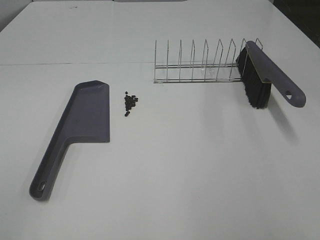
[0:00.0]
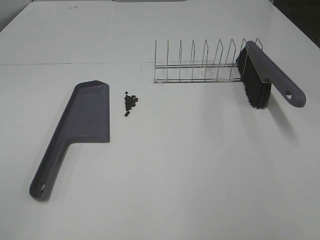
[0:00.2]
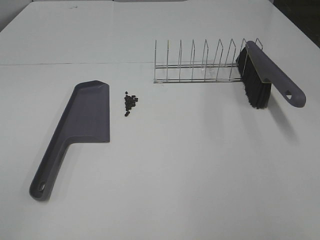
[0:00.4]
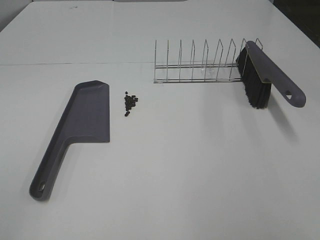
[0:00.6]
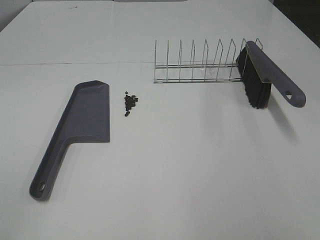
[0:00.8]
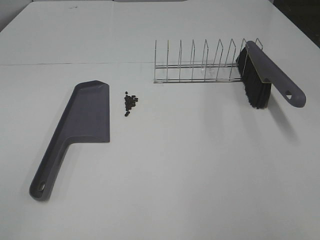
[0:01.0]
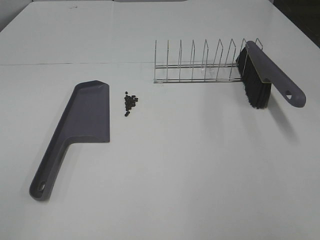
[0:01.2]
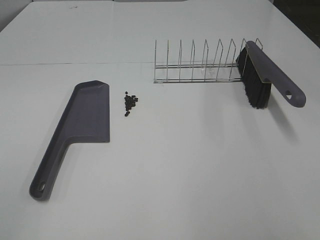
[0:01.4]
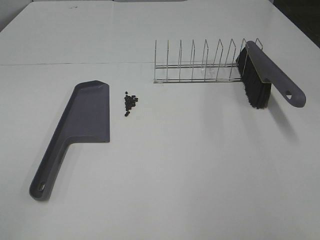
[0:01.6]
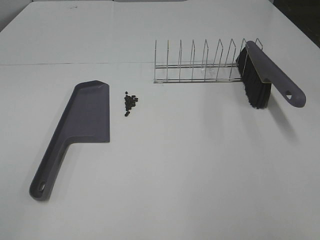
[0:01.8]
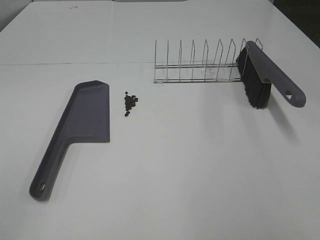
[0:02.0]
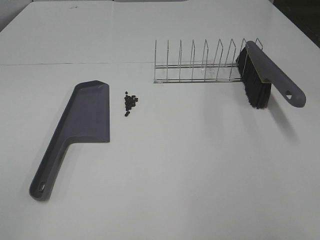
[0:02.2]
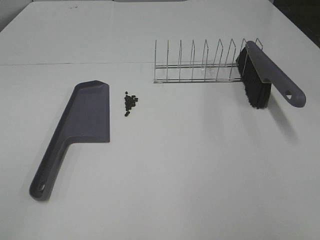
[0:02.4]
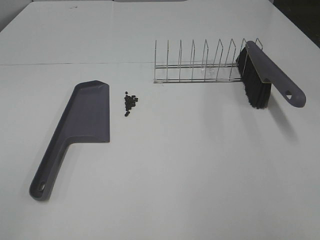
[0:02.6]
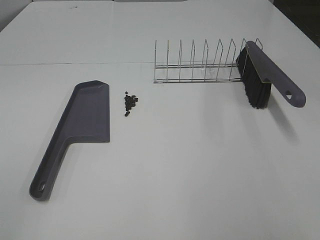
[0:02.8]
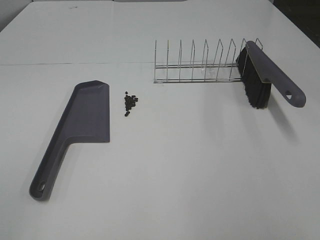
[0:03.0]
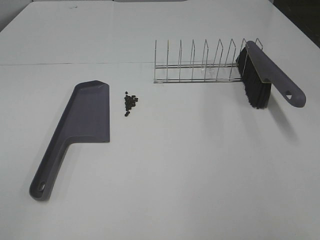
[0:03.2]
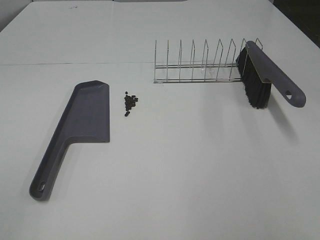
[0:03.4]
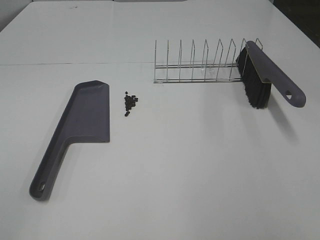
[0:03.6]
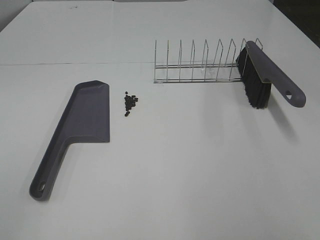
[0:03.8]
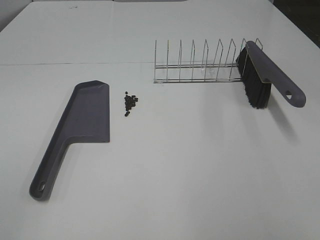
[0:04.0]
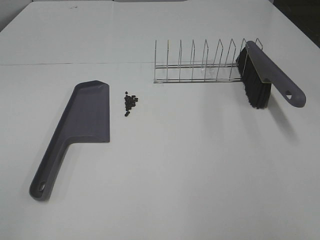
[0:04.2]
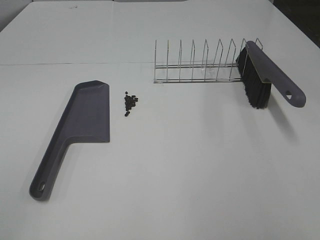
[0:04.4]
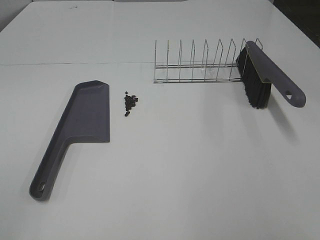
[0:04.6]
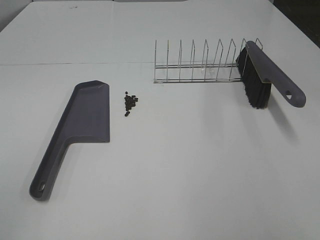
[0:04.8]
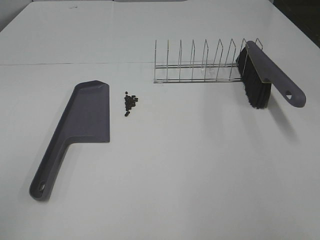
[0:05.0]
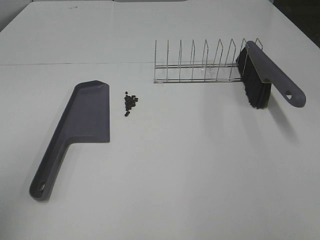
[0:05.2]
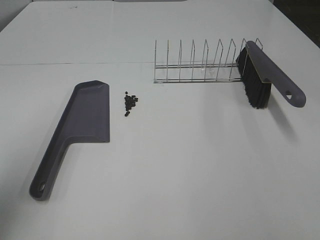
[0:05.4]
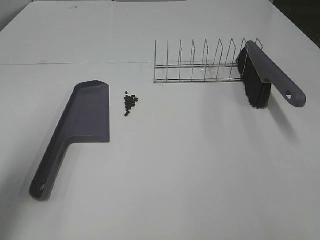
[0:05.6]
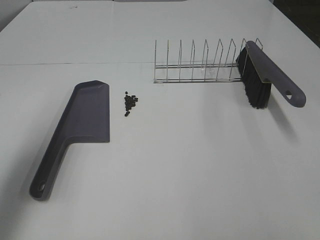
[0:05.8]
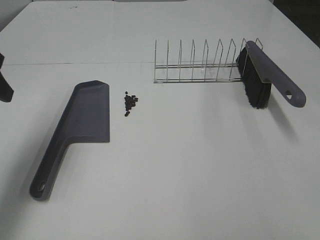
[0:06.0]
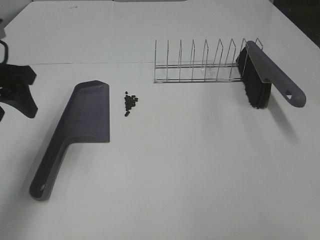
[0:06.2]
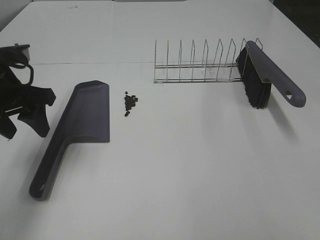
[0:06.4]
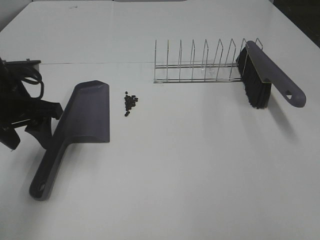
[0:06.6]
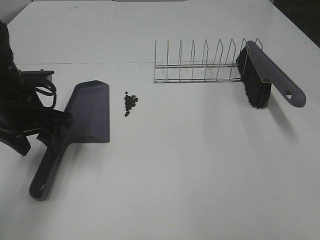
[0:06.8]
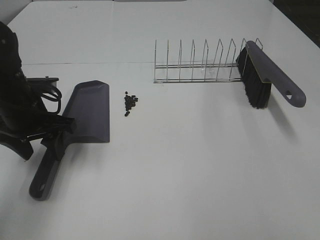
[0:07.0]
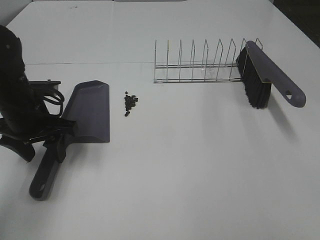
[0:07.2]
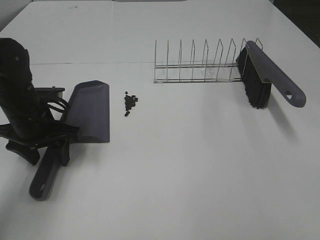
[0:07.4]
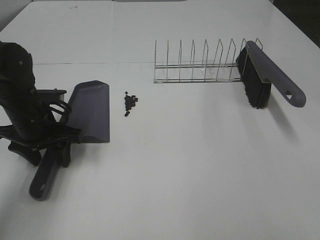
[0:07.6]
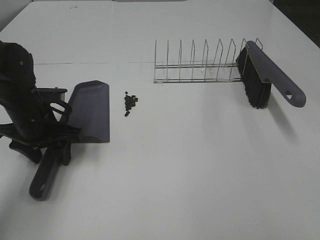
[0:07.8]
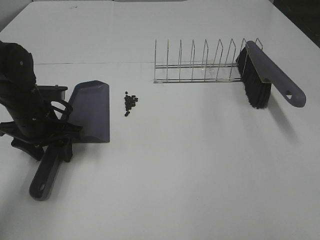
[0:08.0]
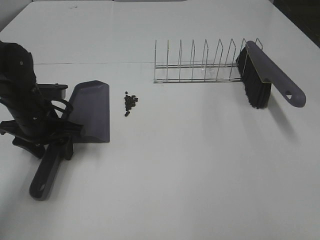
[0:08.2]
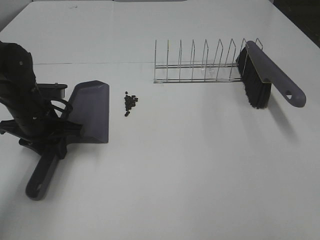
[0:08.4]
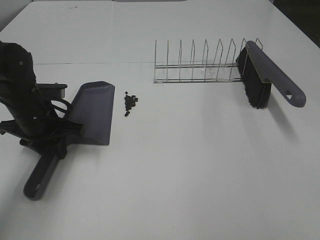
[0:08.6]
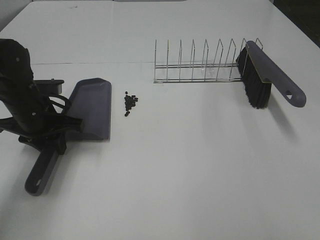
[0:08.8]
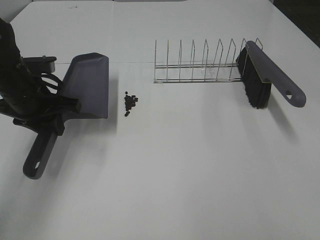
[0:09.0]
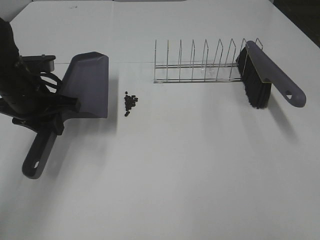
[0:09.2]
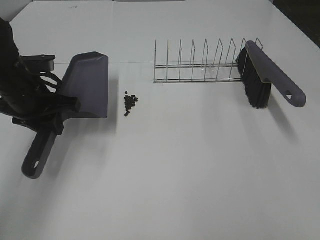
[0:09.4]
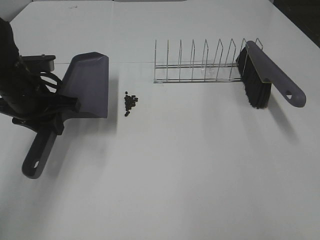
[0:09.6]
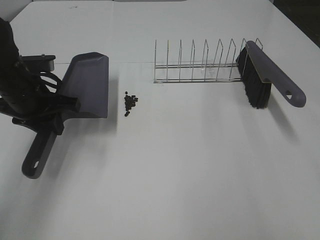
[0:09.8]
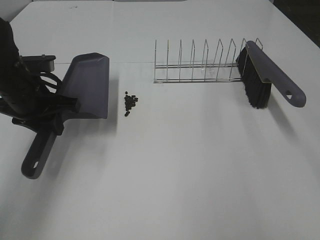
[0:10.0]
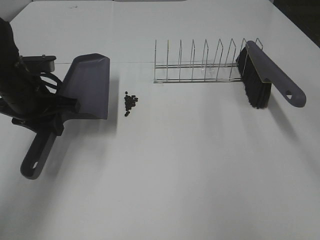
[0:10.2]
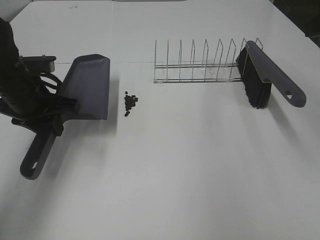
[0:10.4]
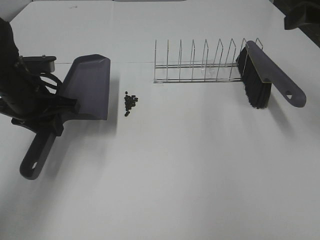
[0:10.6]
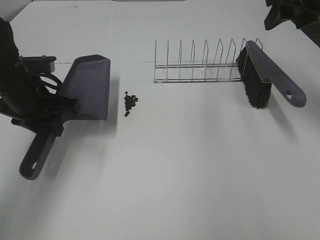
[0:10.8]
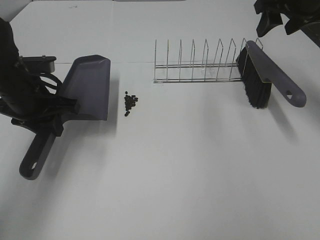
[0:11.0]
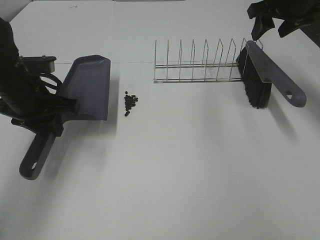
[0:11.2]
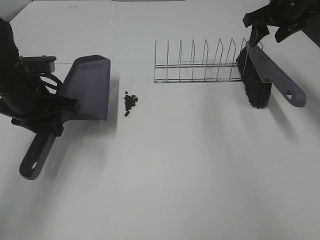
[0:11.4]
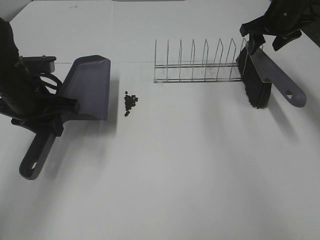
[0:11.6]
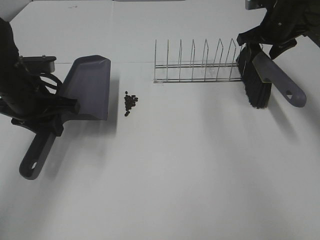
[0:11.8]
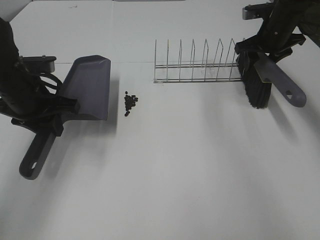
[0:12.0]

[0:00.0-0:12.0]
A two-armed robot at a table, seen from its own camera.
Task of the whole recording: Sweep Coffee Bean.
Step, 0:00.0 to 0:08.4: Left hand: grab the dustpan.
0:00.0 to 0:04.4: Both grippers stay put.
0:04.4 to 0:06.0: The left gripper goes some 30 cm forward.
0:06.0 to 0:07.6: The left gripper shifts some 15 cm downward.
0:07.6 to 0:09.0: The left gripper shifts roughly 5 cm upward, and closes its fingers.
0:10.4 to 0:12.0: The right gripper goes about 30 cm forward and downward.

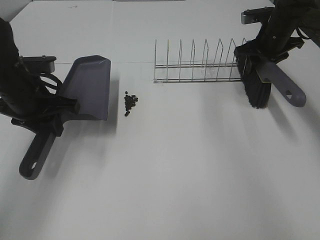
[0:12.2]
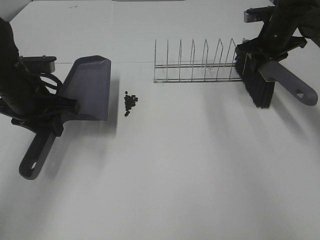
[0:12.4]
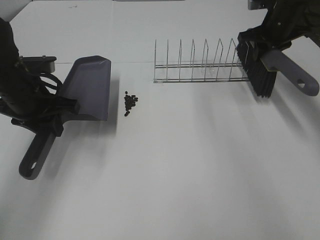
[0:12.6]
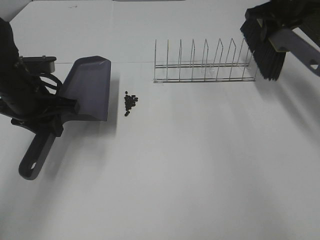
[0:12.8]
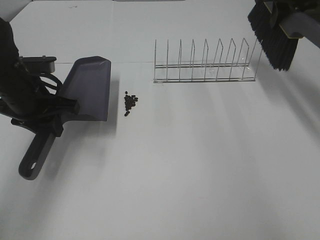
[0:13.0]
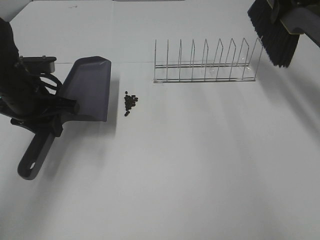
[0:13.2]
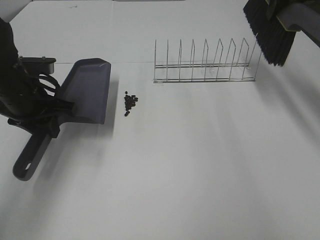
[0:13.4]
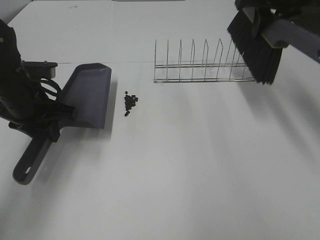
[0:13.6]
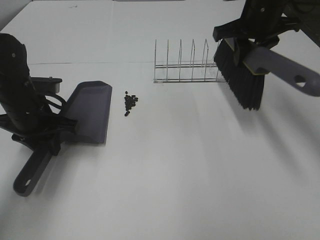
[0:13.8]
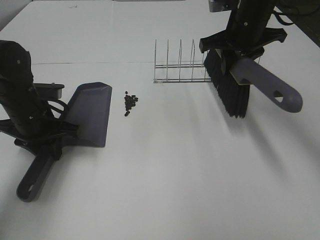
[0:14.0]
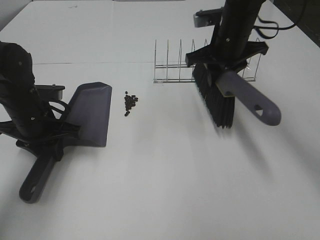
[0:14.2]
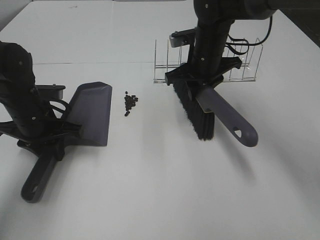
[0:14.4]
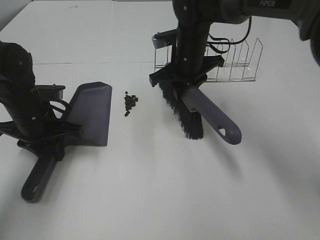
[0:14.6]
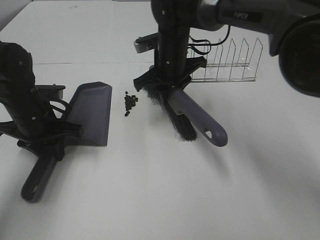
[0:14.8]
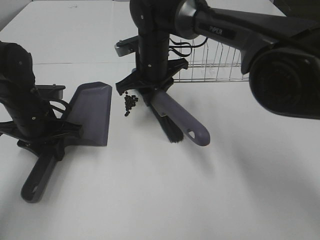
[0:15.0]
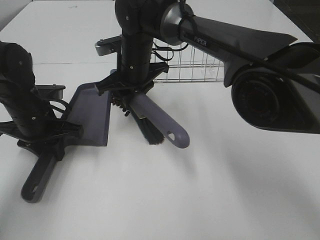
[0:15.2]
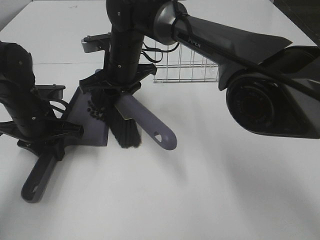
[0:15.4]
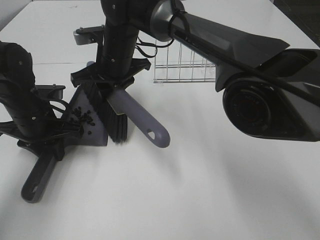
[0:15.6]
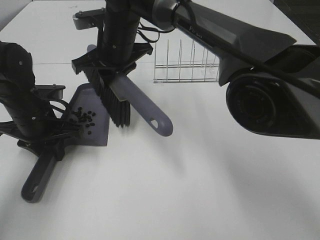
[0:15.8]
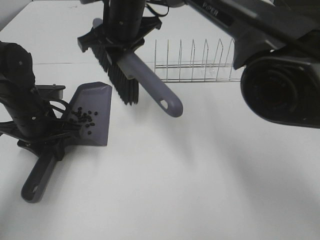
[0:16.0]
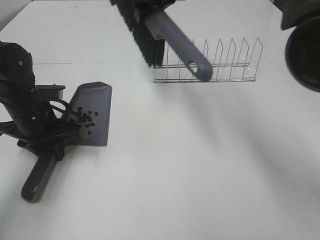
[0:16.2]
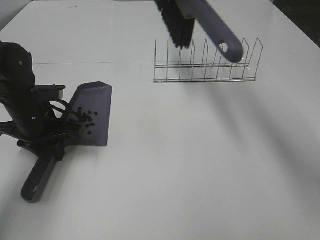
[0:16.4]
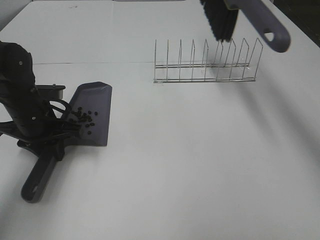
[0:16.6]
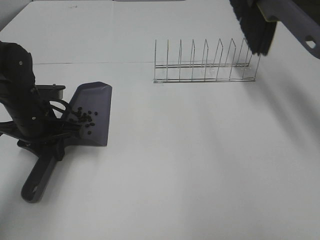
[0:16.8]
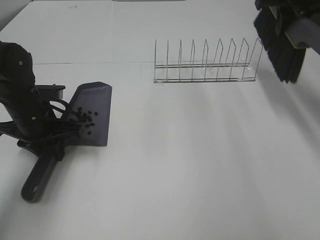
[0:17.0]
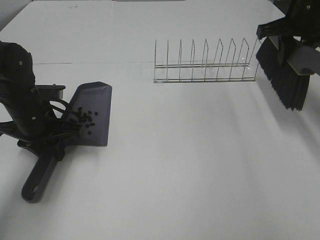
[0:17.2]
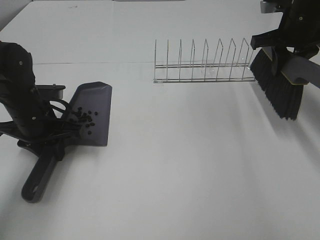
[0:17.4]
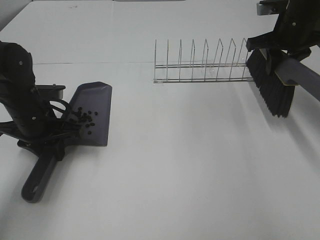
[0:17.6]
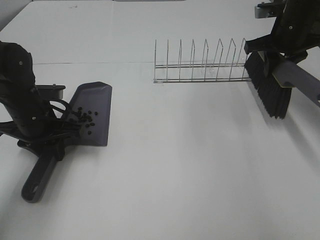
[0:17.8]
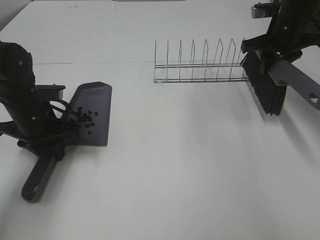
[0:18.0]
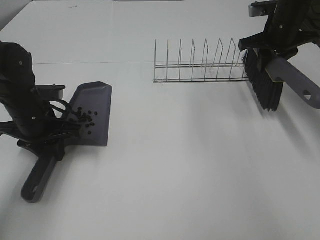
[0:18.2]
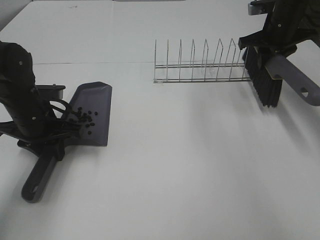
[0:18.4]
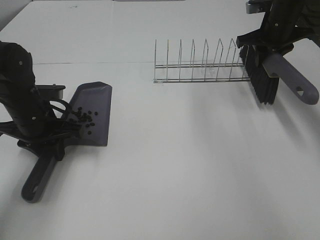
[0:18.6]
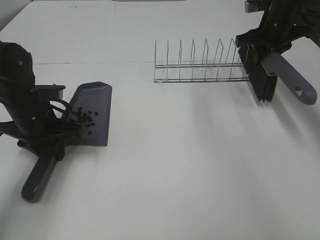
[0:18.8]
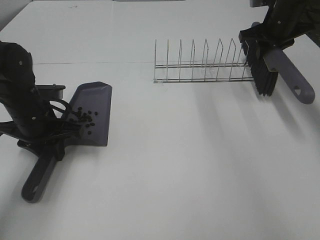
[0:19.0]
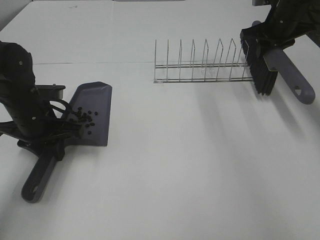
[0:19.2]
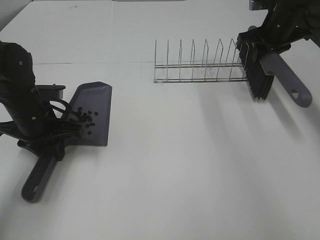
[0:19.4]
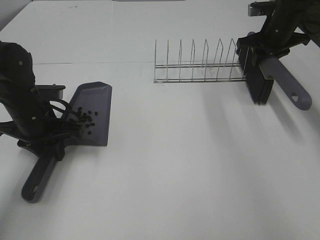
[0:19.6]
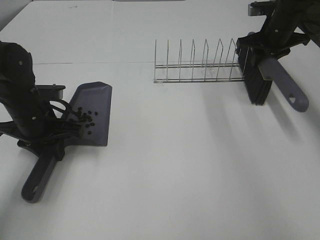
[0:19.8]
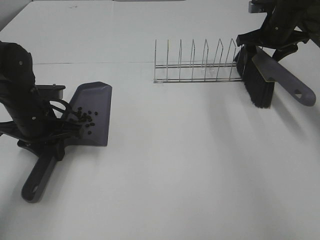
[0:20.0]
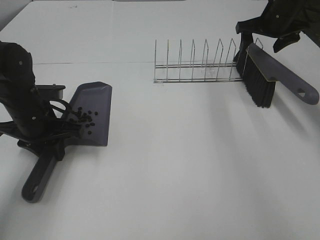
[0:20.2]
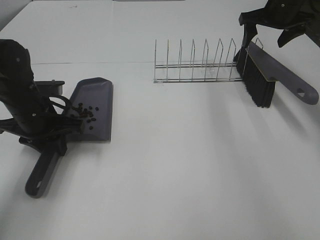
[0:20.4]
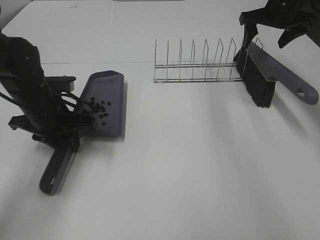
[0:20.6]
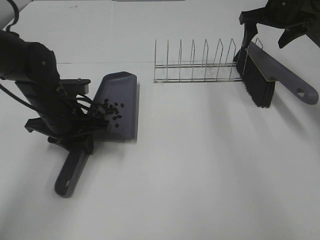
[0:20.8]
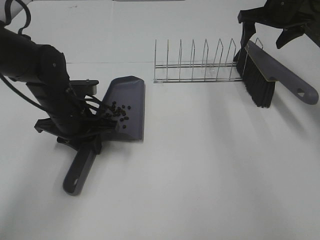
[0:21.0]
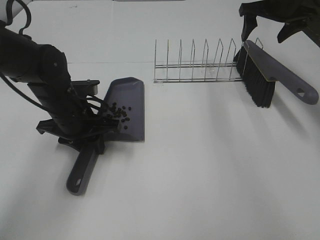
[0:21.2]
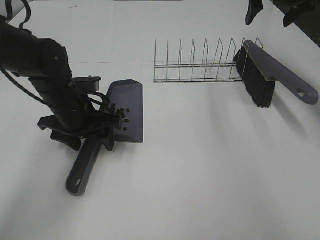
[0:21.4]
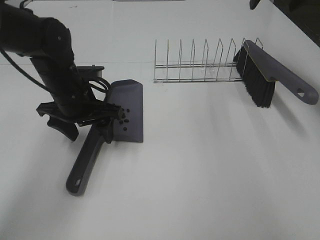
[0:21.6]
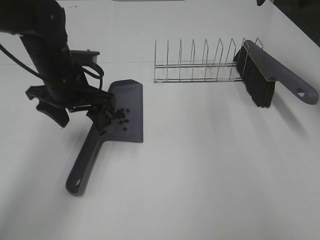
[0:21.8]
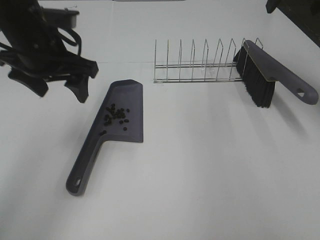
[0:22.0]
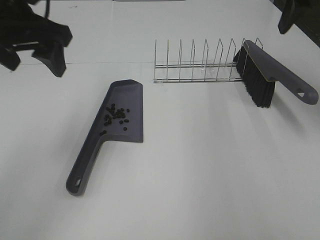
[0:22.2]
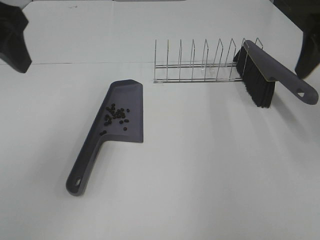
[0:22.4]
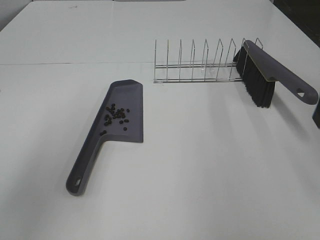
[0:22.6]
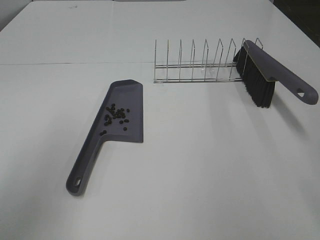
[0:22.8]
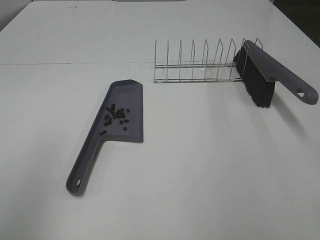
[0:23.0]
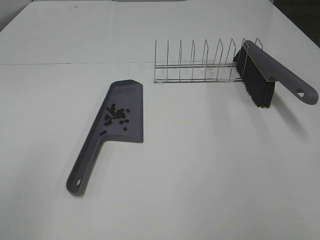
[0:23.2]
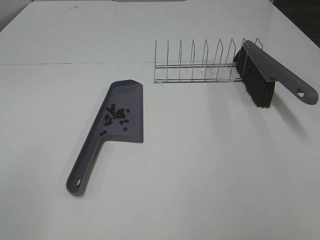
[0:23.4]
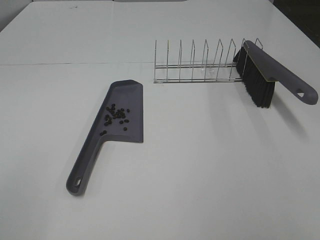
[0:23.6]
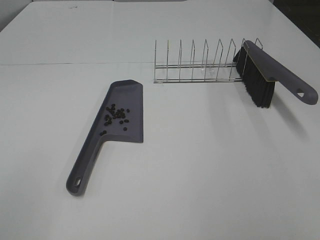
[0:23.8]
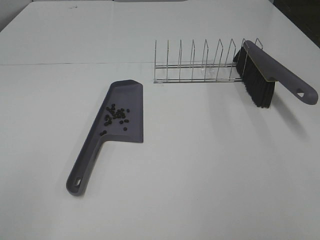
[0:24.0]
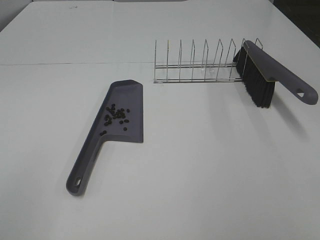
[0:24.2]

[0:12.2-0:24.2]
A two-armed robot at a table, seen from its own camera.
Task of the whole recording: Sweep Coffee Bean.
Step, 0:12.4 to 0:15.6: Right hand:sweep the coffee beans into the dustpan.
Step, 0:15.8 to 0:20.2: Right hand:place the broom on the rack.
Step, 0:20.4 to 0:21.6: Left hand:place the dustpan on the table.
0:12.2 to 0:13.8: The right gripper is displaced to the left, upward and backward by approximately 15 cm.
0:13.8 to 0:15.2: The right gripper travels to the left and downward by approximately 25 cm.
0:15.2 to 0:16.6: The right gripper travels upward and to the right by about 30 cm.
0:16.6 to 0:18.2: The right gripper is displaced downward and to the right by some 20 cm.
0:18.2 to 0:19.8: The grippers stay close to where they were, moving slightly.
0:19.8 to 0:21.2: The left gripper heads to the right, covering approximately 5 cm. The right gripper moves upward, about 10 cm, and opens up.
0:21.2 to 0:22.6: The left gripper heads upward and backward, covering some 30 cm, and opens up, while the right gripper moves backward, some 30 cm.
0:22.6 to 0:24.2: The left gripper heads backward, covering roughly 20 cm.
